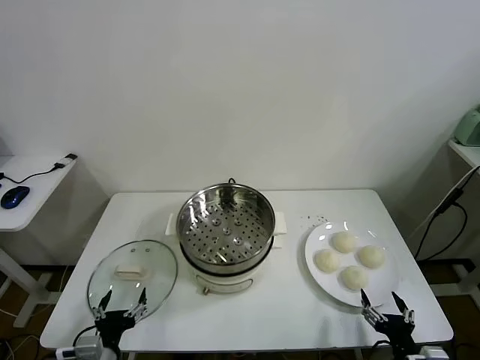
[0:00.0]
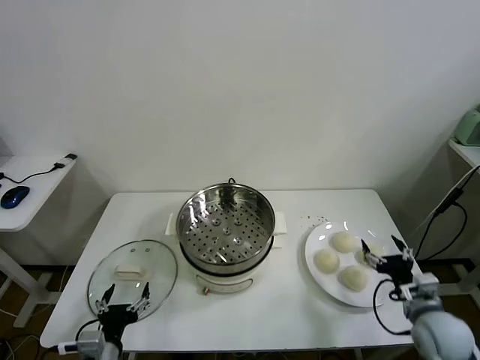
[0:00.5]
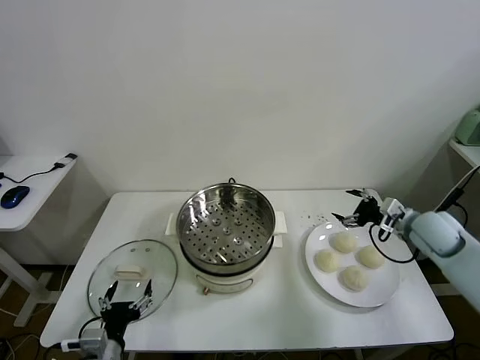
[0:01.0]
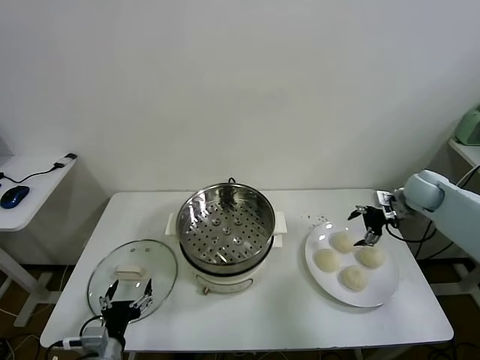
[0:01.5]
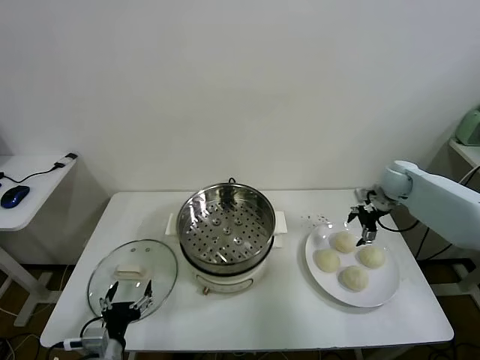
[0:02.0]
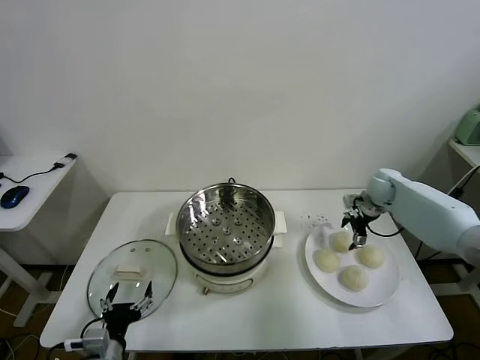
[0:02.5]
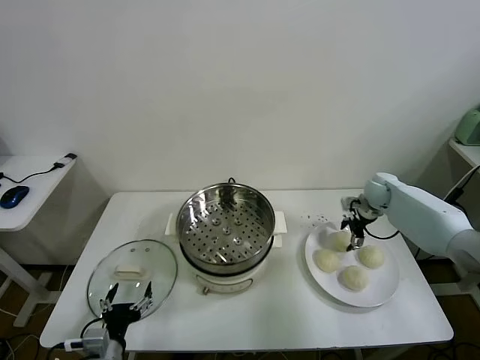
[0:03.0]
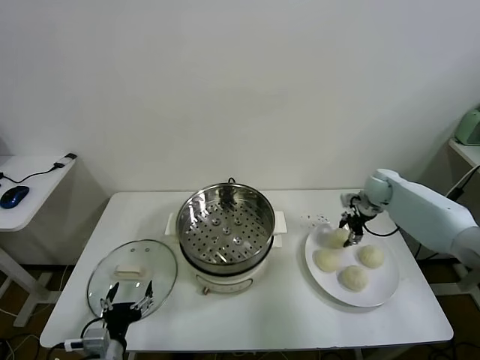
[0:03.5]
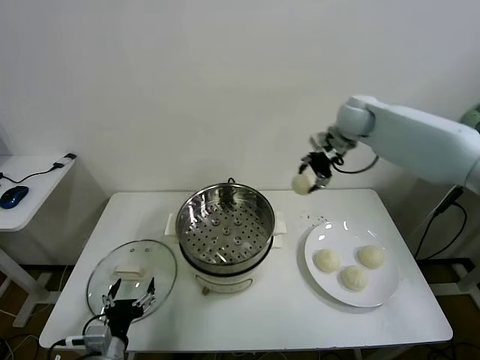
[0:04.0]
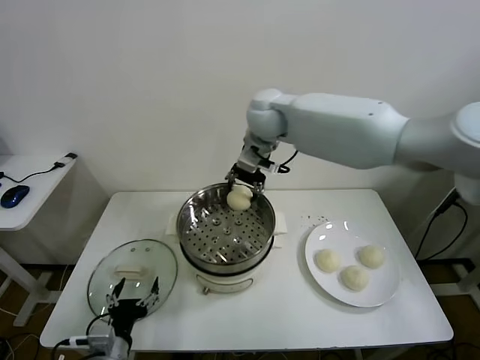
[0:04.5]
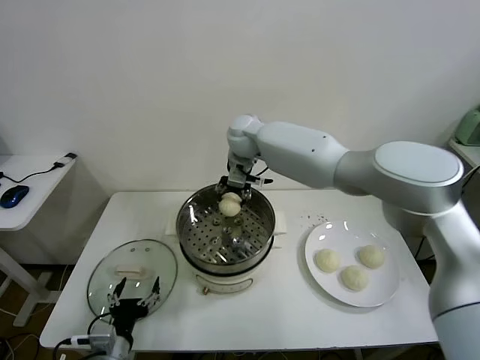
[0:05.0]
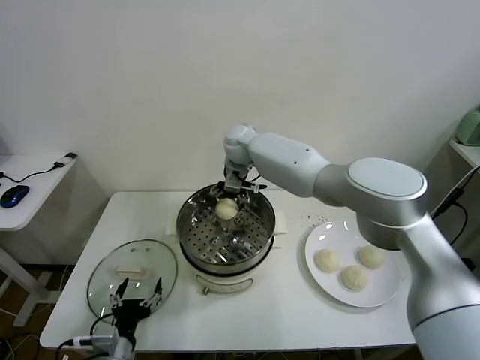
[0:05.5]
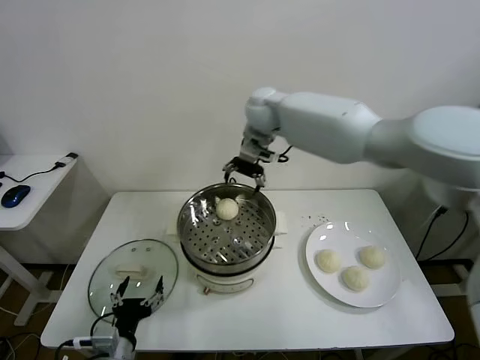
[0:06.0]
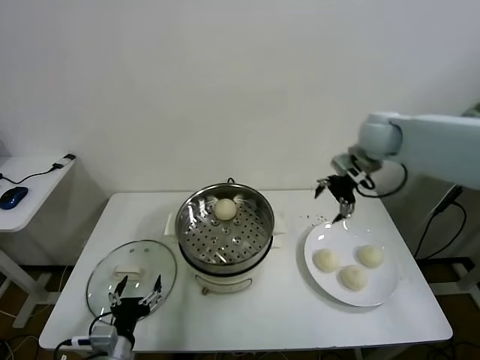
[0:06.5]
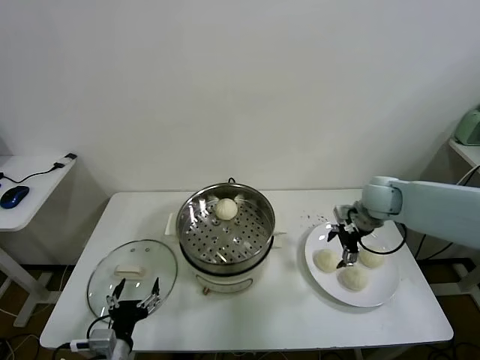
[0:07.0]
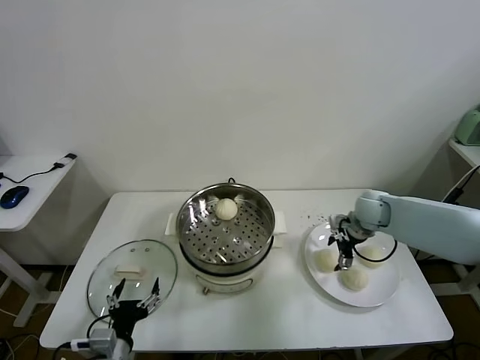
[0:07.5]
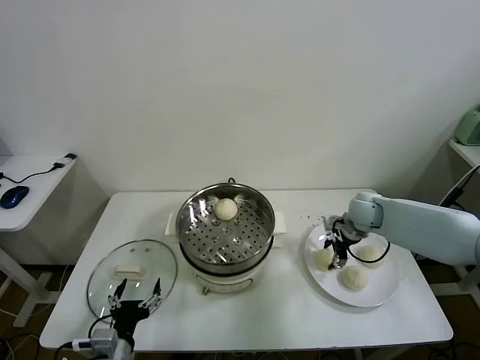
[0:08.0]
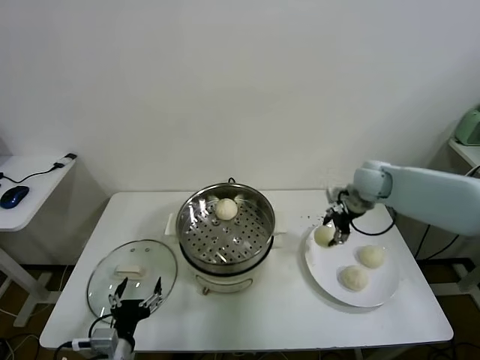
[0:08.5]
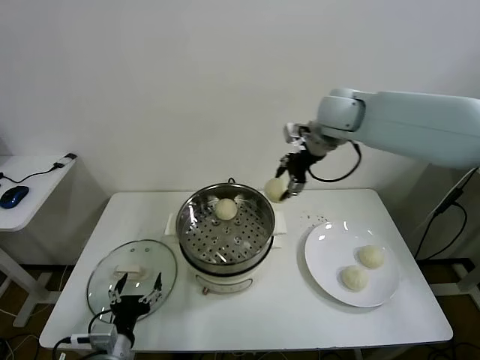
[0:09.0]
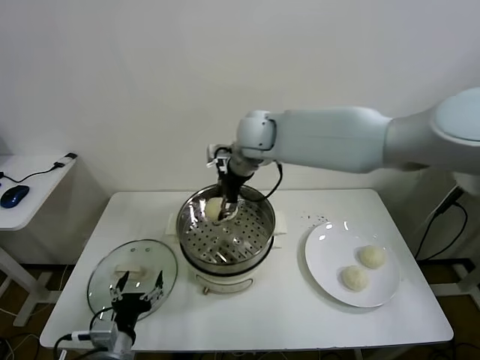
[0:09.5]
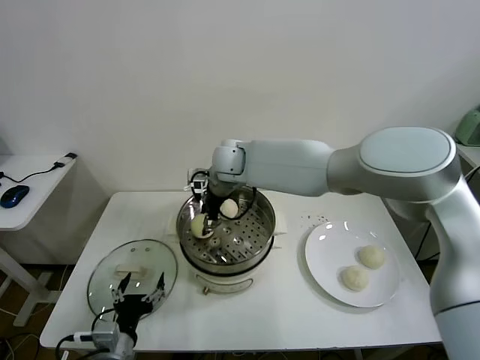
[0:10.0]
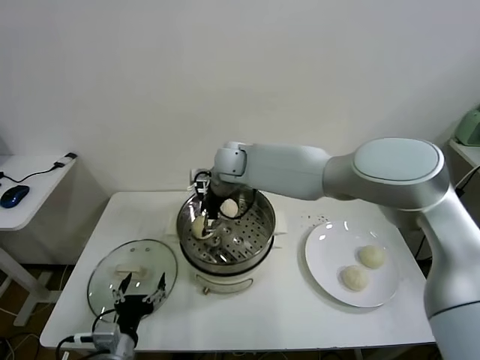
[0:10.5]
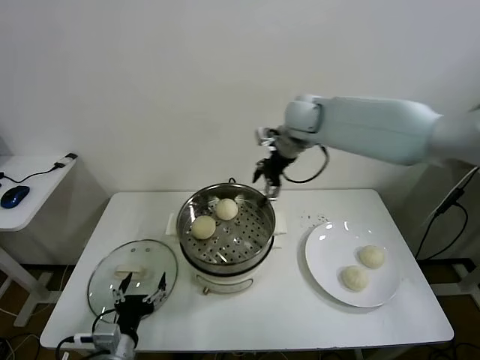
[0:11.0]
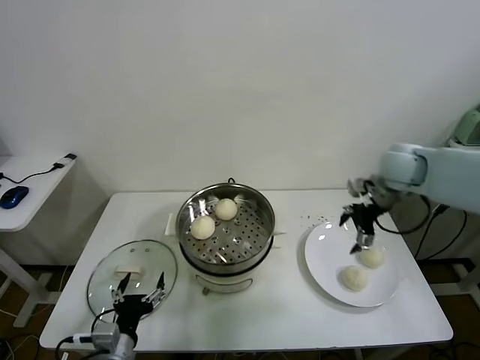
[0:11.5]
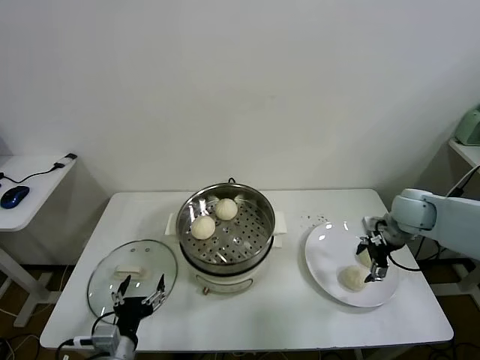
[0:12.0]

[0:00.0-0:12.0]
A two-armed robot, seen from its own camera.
Task of the whole recording: take steamed baozi put them in steamer.
Step, 0:00.0 to 0:03.0: Grasp the baozi in the plate with right gripper.
Step, 0:03.5 to 0:05.5: Place the baozi on the steamer with right gripper.
Step, 0:06.0 to 0:08.0: Grasp the baozi in the plate with right gripper.
Step, 0:08.5 to 0:10.5: Place the baozi on the steamer with right gripper.
0:02.0 to 0:04.0: The right gripper is displaced upward and to the left by approximately 25 cm, and closes.
0:04.0 to 0:06.0: The right gripper is displaced to the left by roughly 20 cm, and opens.
0:06.0 to 0:08.0: The right gripper travels to the right and downward by about 35 cm, and closes up.
0:08.0 to 0:10.0: The right gripper goes about 35 cm to the left and upward.
0:10.0 to 0:12.0: The right gripper is displaced to the right by approximately 40 cm, and opens its fingers.

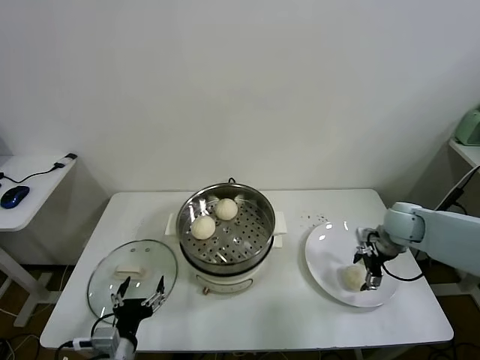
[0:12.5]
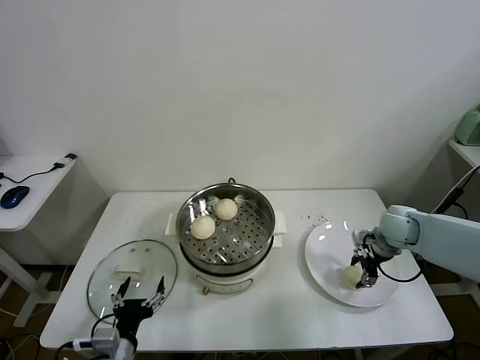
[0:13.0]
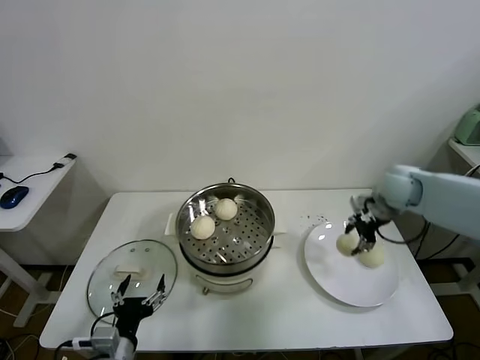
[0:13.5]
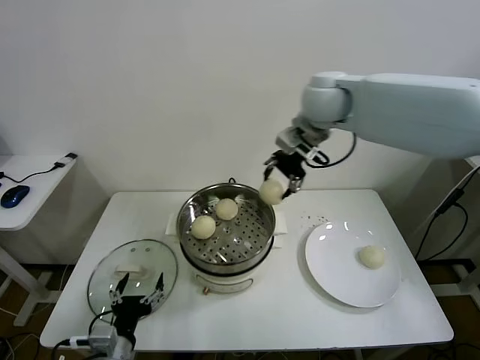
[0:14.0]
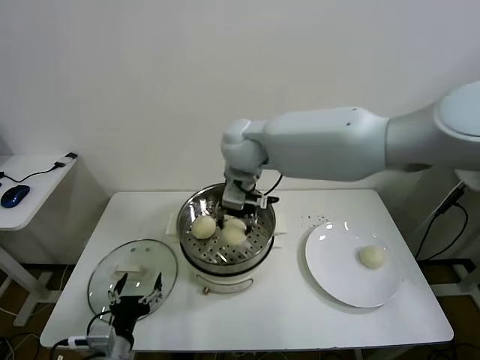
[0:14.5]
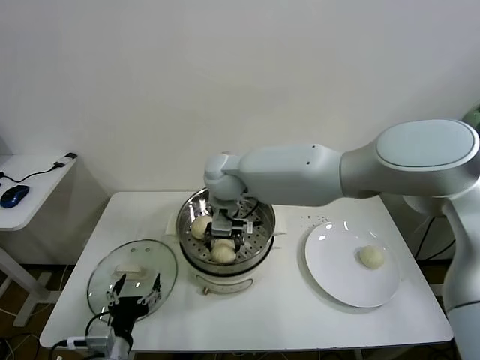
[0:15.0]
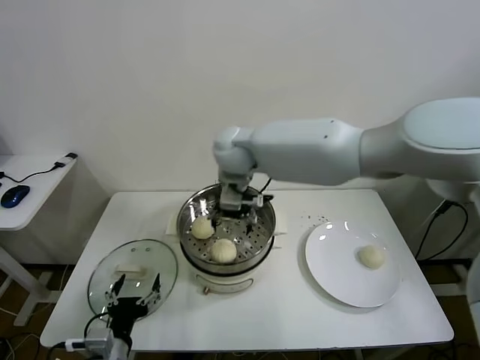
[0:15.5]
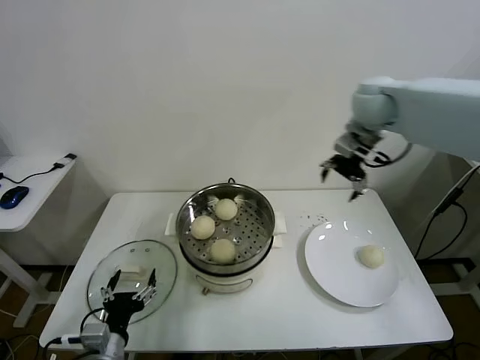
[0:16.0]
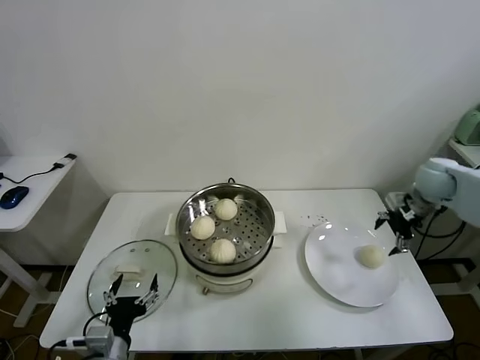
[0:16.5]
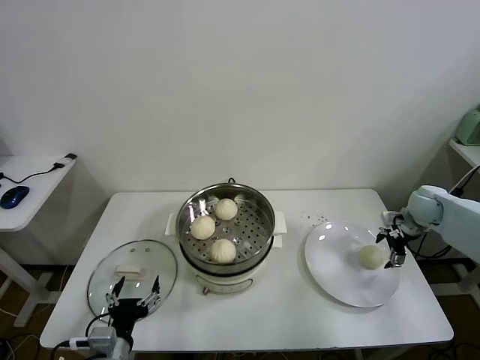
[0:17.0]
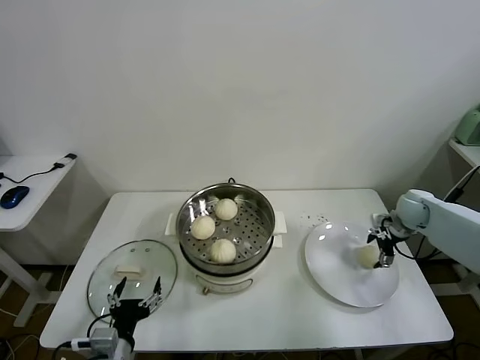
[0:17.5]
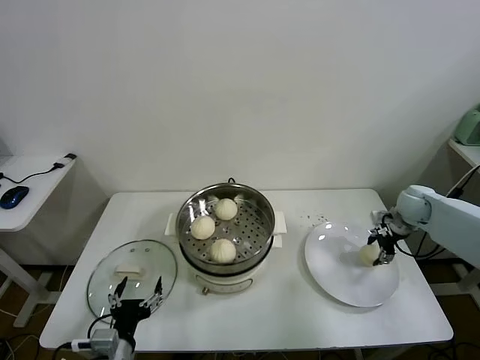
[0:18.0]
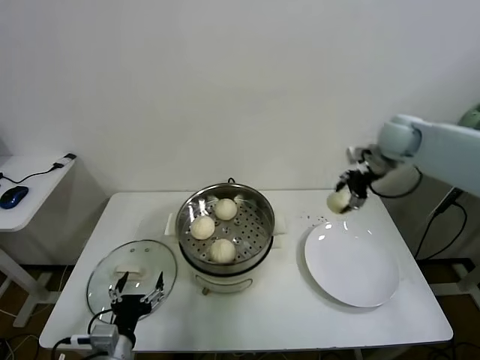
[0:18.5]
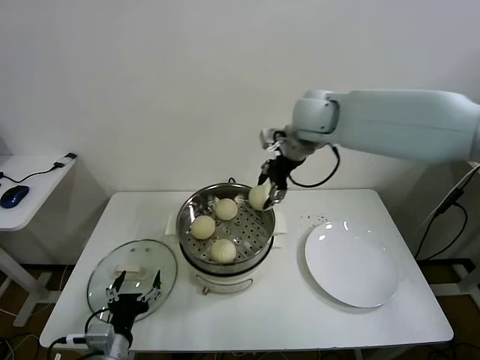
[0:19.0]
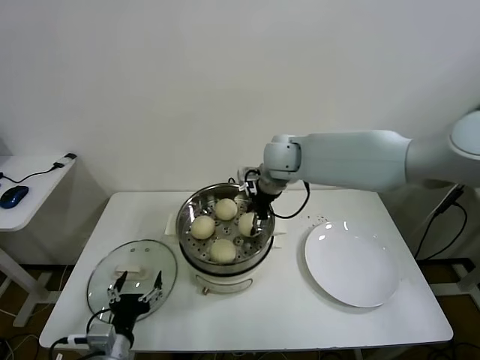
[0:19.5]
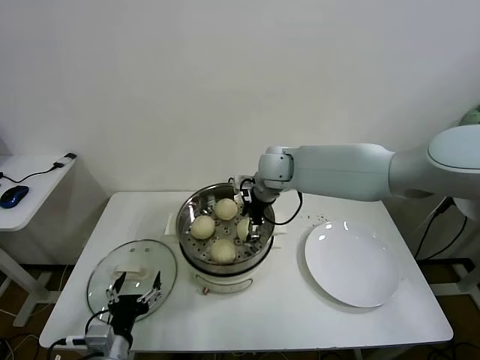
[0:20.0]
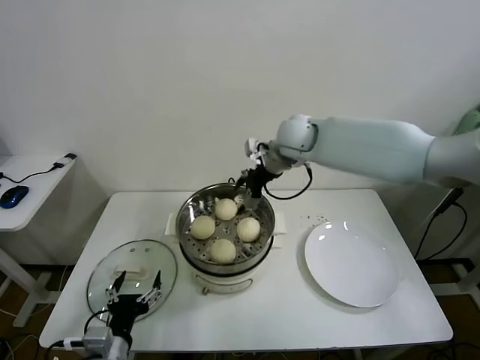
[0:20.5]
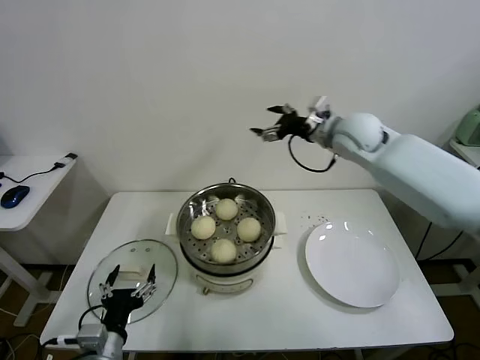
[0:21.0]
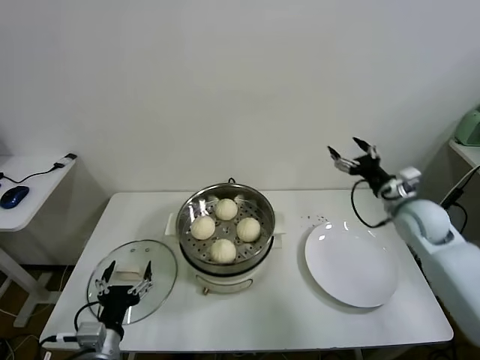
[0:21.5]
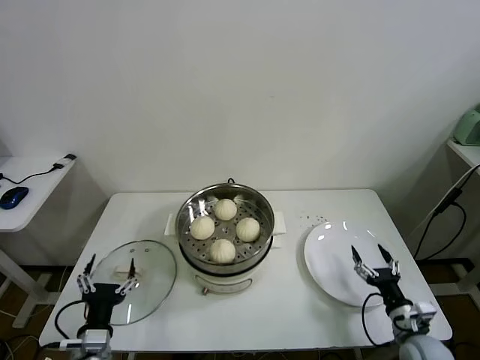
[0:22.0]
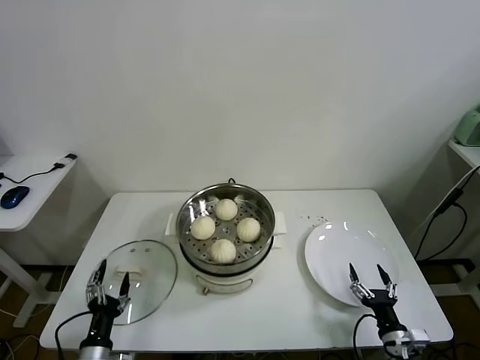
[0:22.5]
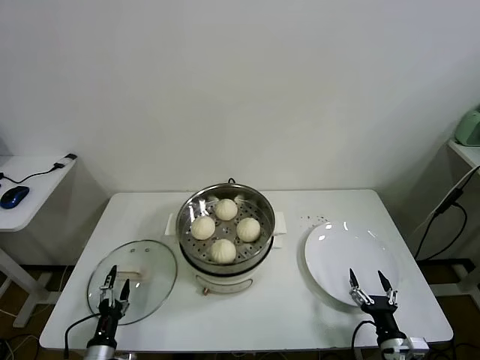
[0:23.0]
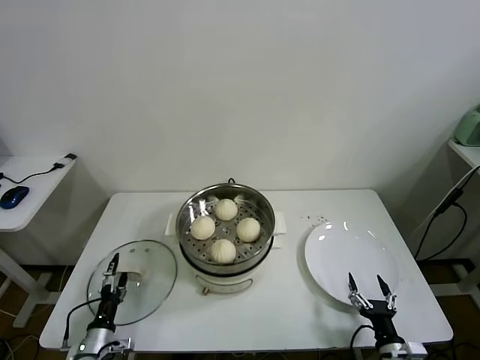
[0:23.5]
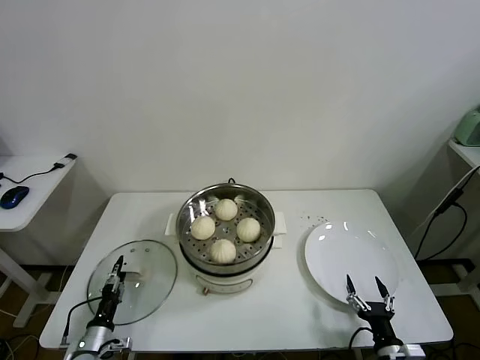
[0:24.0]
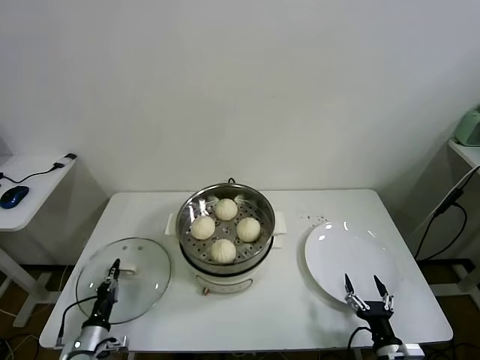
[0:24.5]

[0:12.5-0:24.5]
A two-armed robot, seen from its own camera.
Task of the whole recording: take steamed baozi put them in steamer.
Step, 0:13.5 to 0:15.0: Place the baozi on the steamer with right gripper.
Step, 0:15.5 to 0:17.5: Grasp the baozi in the plate with right gripper.
Step, 0:18.0 to 0:20.0: Place the baozi on the steamer with right gripper.
Step, 0:20.5 to 0:24.0: Grasp the pot lid with left gripper.
0:12.5 to 0:14.5: The right gripper heads to the left and upward, covering about 40 cm, and closes up.
0:14.5 to 0:16.5: The right gripper goes roughly 40 cm to the right, and opens its fingers.
0:16.5 to 0:18.5: The right gripper goes about 10 cm to the left and upward, and closes up.
0:18.5 to 0:20.5: The right gripper is displaced to the left by roughly 25 cm, and opens up.
0:20.5 to 0:22.5: The right gripper goes about 60 cm backward, downward and to the right. The left gripper heads downward and to the left, covering approximately 10 cm.
0:22.5 to 0:24.5: The left gripper is displaced downward, to the left and forward by about 10 cm, and closes up.

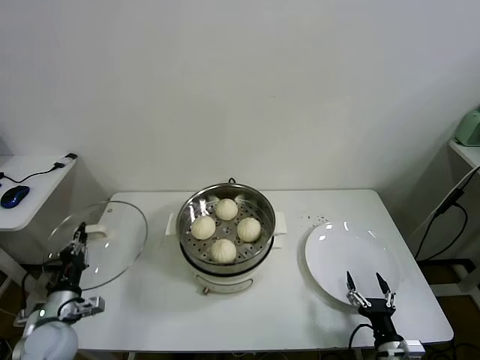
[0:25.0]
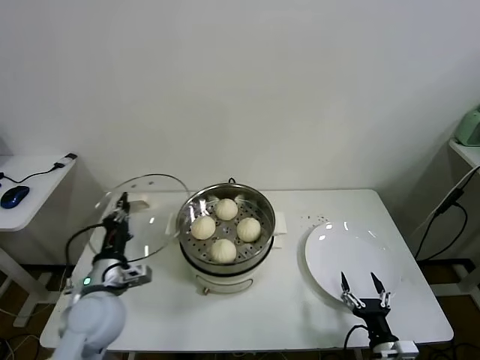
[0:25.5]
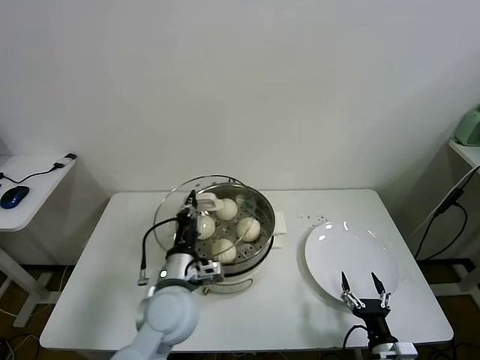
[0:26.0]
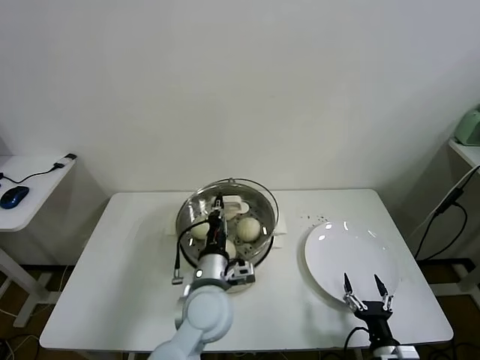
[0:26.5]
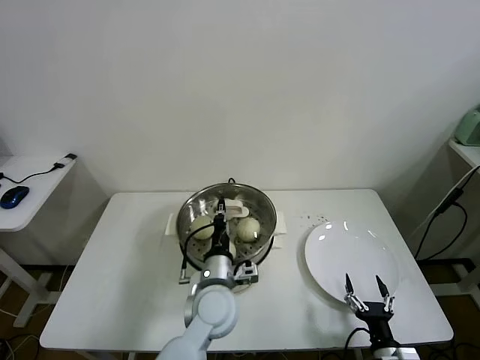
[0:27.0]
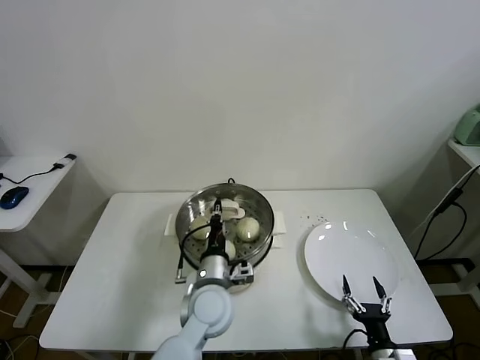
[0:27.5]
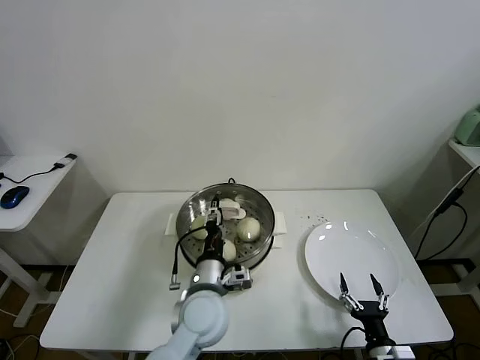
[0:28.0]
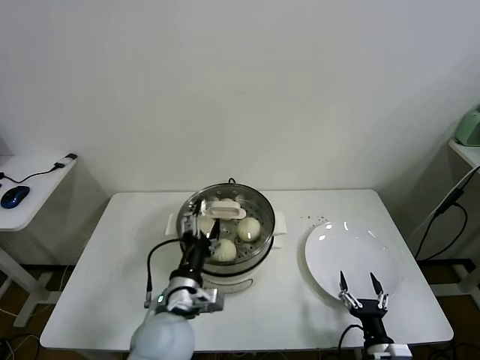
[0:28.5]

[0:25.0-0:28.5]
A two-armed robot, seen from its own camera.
Task of the whole recording: take steamed baozi put them in steamer.
Step, 0:25.0 to 0:28.0: Place the pot lid on the steamer with left gripper.
0:25.0 to 0:27.0: The left gripper is displaced to the right by approximately 35 cm.
0:27.0 to 0:28.5: The left gripper is displaced to the left and backward by approximately 10 cm, and opens its fingers.
